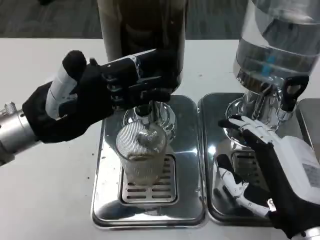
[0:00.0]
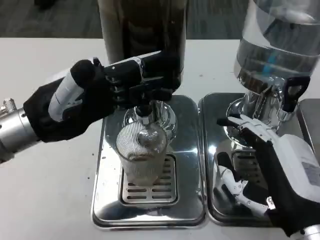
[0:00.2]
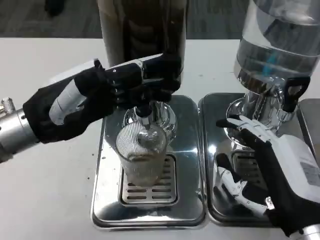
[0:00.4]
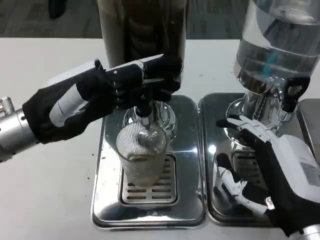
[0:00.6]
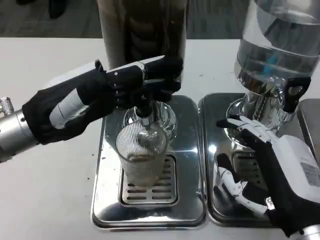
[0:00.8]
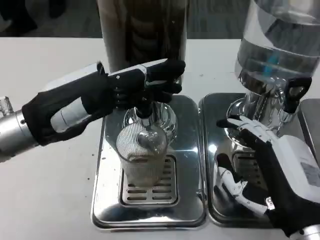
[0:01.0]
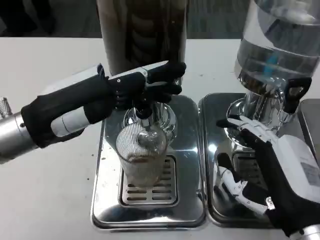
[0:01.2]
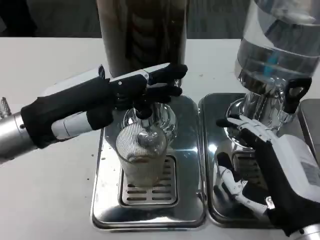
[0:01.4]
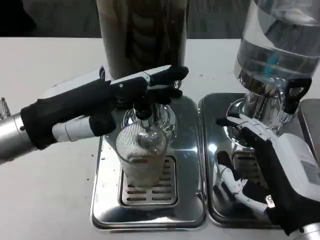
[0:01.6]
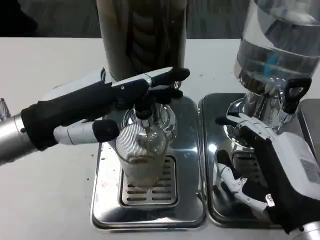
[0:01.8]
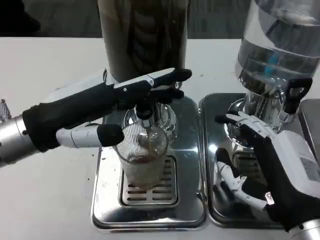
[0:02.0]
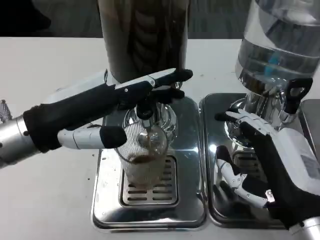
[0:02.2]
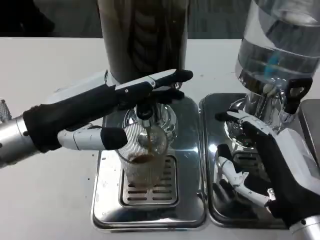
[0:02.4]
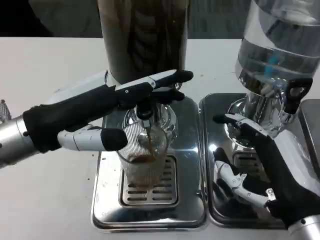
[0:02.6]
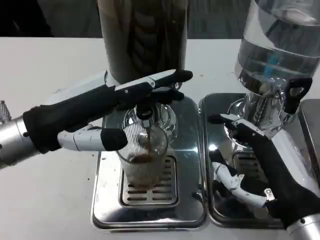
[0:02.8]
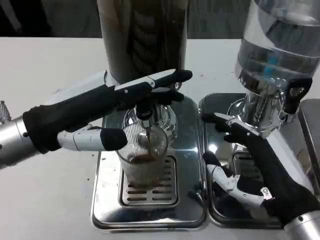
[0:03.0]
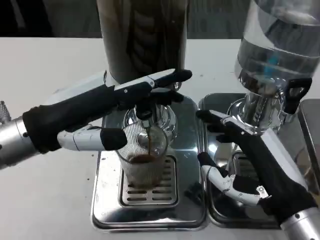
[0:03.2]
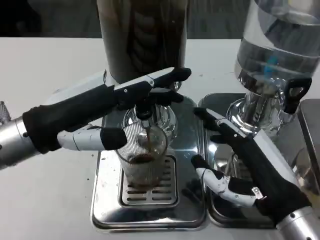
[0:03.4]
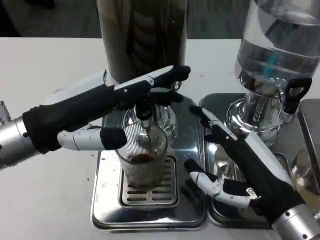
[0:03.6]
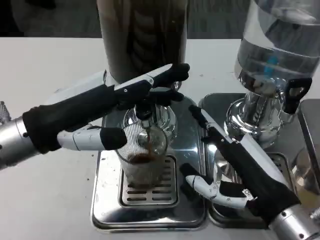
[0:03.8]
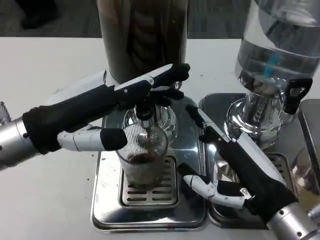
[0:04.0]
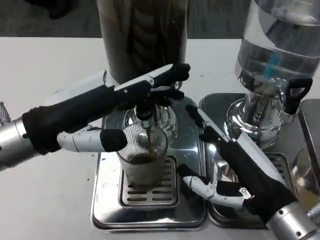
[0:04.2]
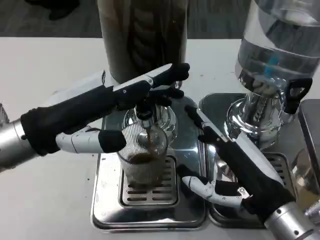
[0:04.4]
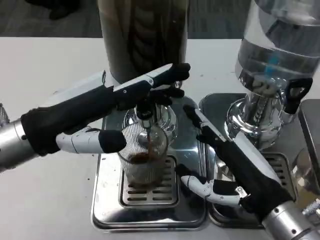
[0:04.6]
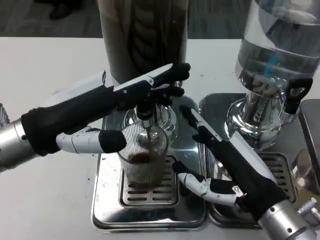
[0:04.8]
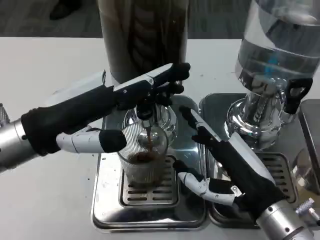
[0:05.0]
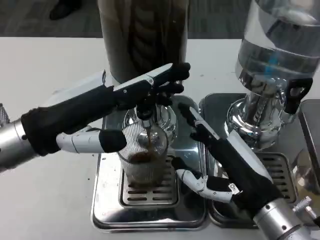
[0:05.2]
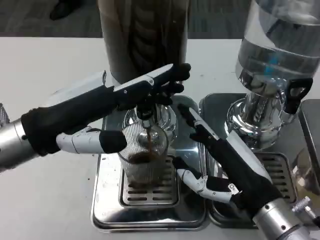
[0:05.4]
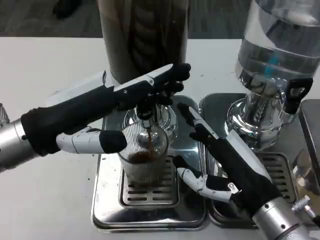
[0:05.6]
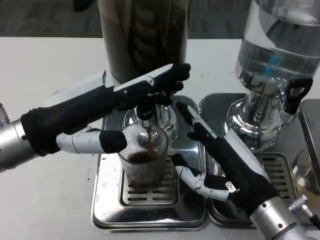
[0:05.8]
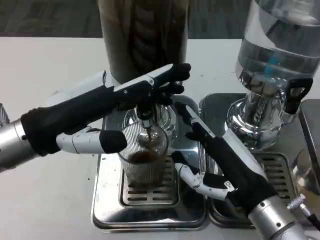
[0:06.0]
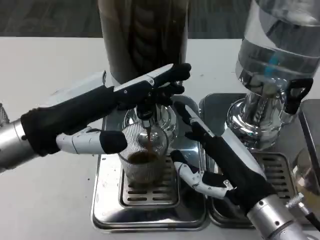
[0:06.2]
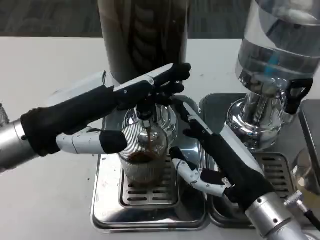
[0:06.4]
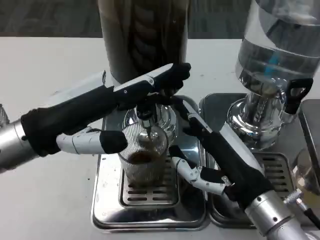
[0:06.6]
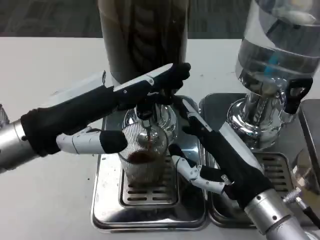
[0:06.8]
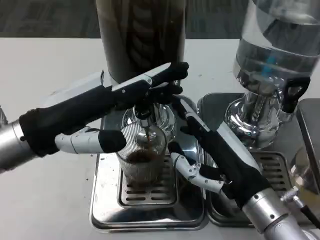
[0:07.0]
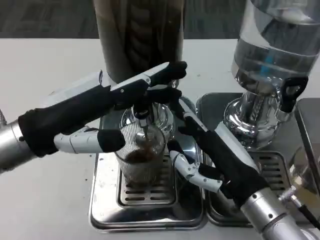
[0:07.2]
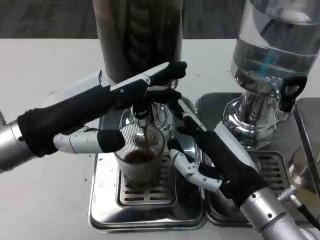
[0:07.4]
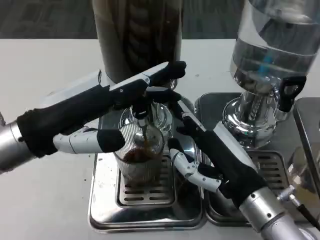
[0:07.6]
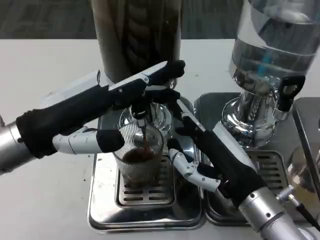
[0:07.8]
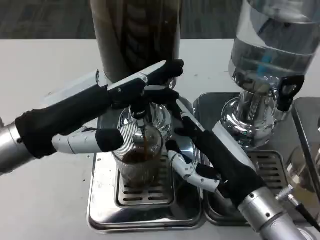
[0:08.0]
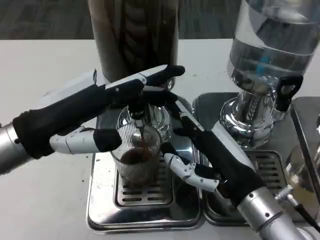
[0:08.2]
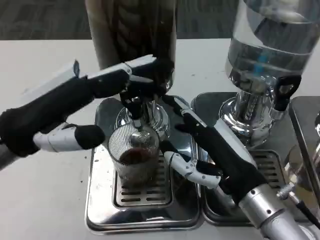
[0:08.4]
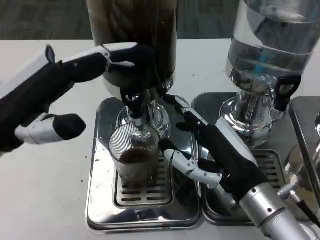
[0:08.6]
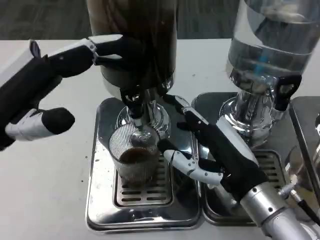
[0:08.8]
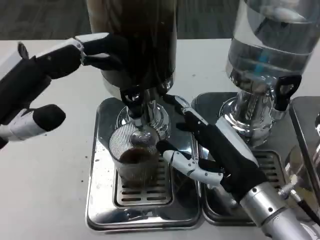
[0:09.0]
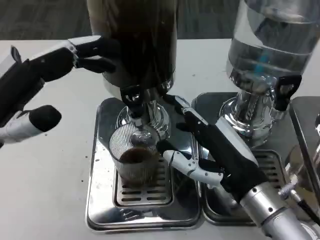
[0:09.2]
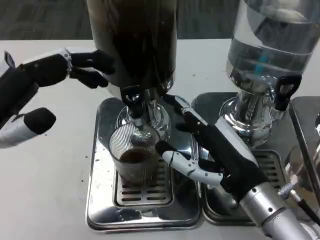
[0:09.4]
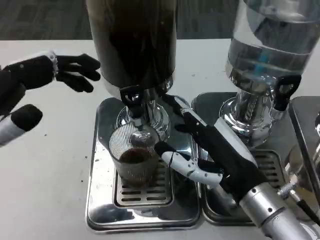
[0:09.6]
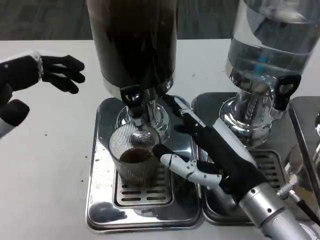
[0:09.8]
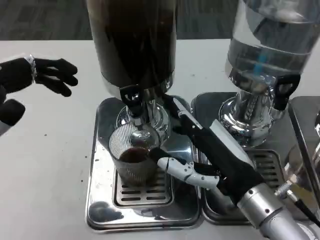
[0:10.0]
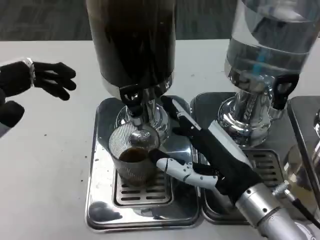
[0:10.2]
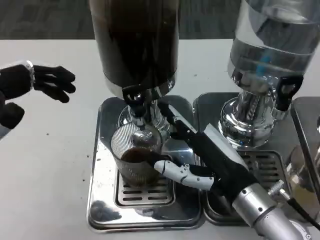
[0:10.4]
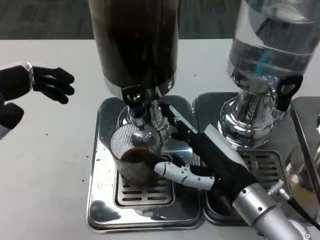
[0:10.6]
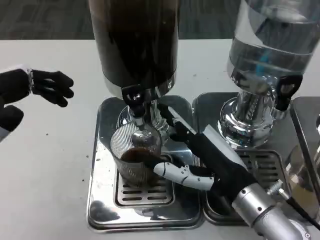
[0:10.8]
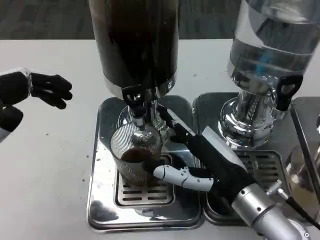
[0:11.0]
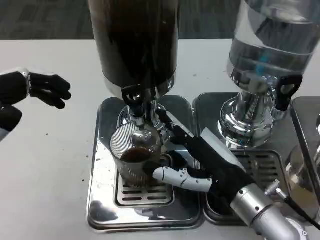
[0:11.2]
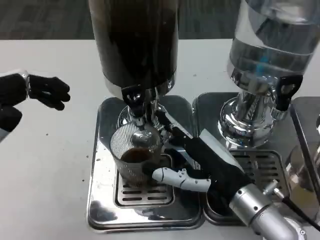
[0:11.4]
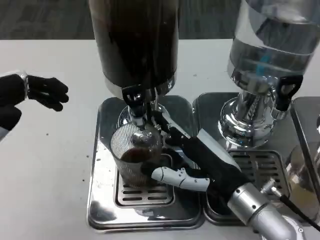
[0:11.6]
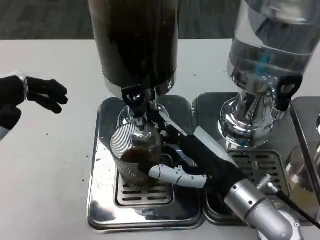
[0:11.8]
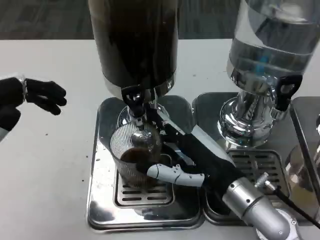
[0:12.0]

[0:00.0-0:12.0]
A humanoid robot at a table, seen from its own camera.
Task of the whole recording: Grasp the cup under the faucet to collect the drink, then remove the cup.
0:01.6 to 0:03.0: There are only small adjustments of the hands.
0:03.0 to 0:06.0: The hands stay close to where they were, moving slightly.
0:10.4 to 0:12.0: The hands move only a little.

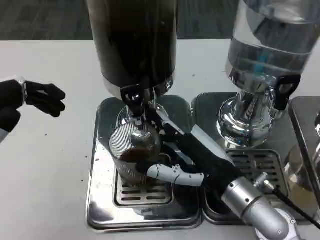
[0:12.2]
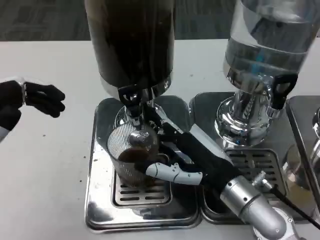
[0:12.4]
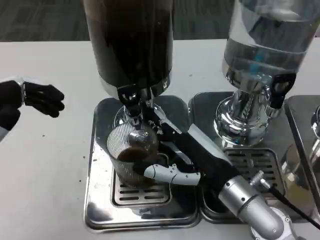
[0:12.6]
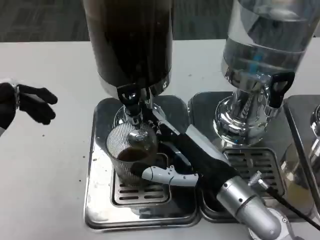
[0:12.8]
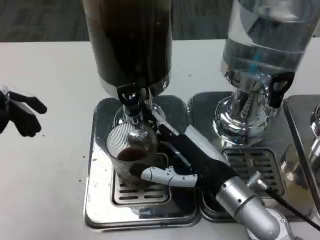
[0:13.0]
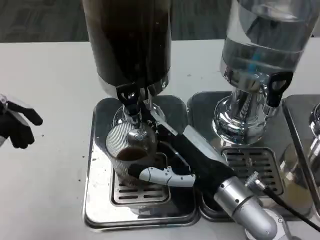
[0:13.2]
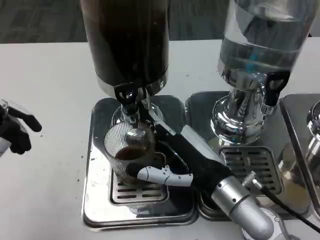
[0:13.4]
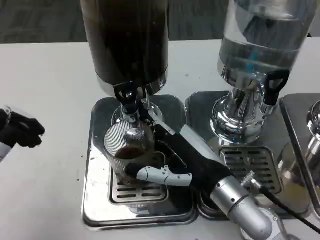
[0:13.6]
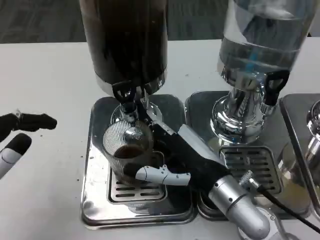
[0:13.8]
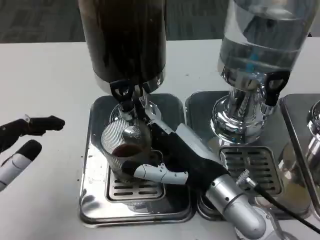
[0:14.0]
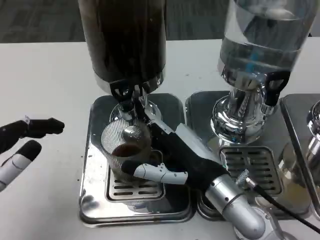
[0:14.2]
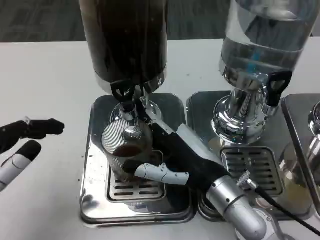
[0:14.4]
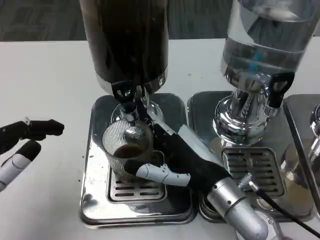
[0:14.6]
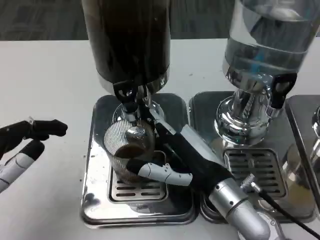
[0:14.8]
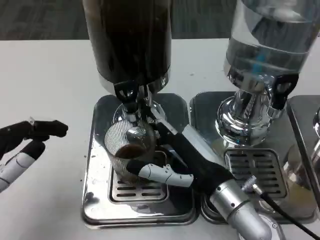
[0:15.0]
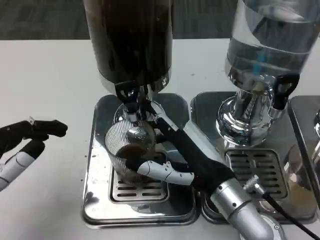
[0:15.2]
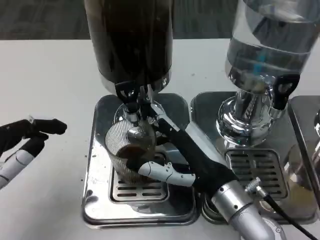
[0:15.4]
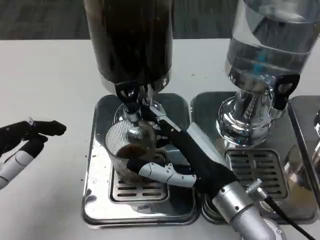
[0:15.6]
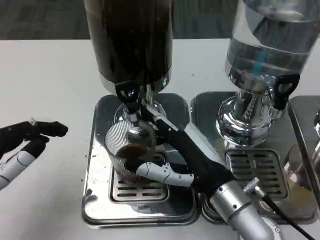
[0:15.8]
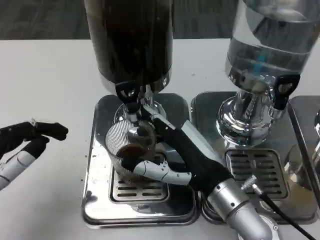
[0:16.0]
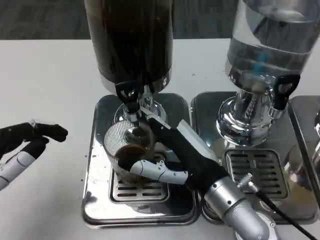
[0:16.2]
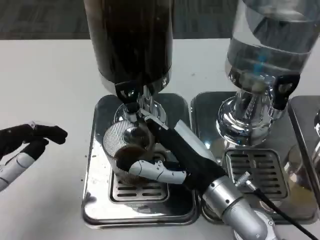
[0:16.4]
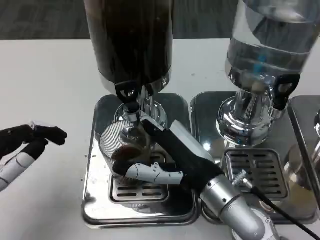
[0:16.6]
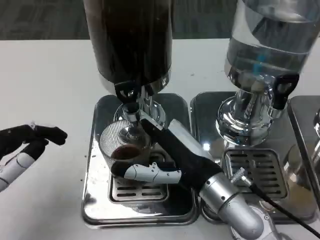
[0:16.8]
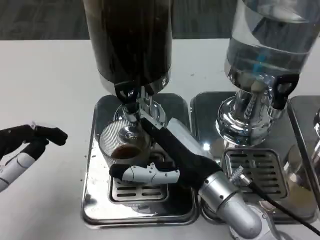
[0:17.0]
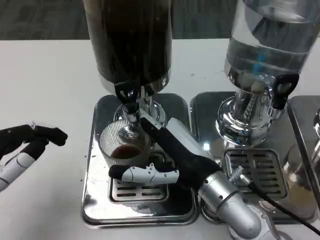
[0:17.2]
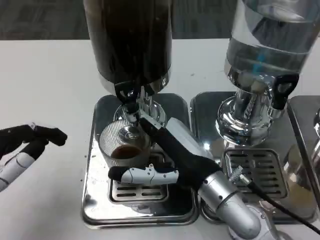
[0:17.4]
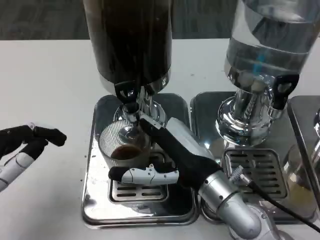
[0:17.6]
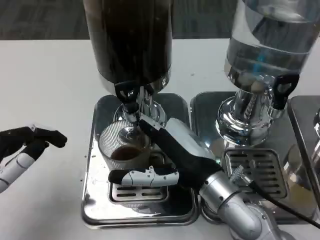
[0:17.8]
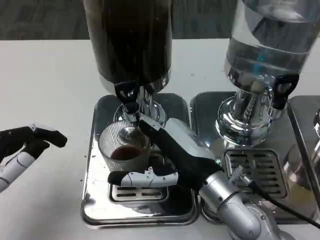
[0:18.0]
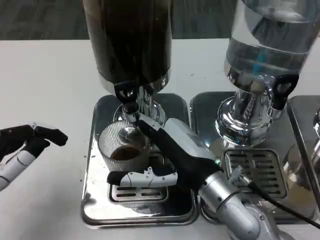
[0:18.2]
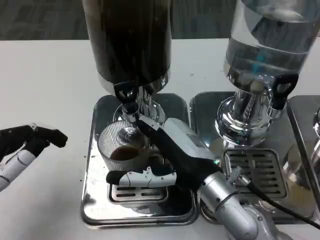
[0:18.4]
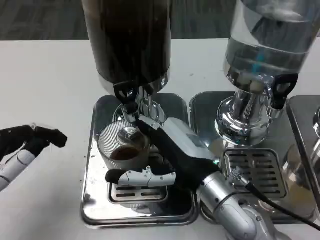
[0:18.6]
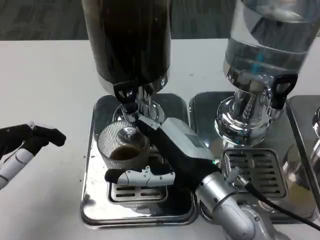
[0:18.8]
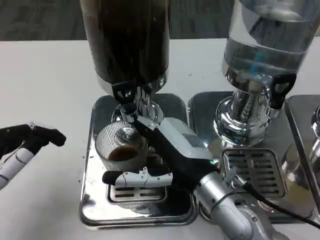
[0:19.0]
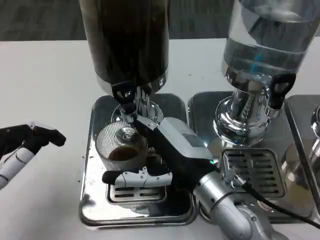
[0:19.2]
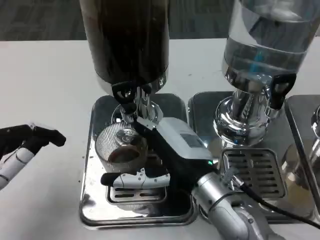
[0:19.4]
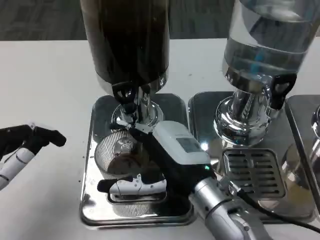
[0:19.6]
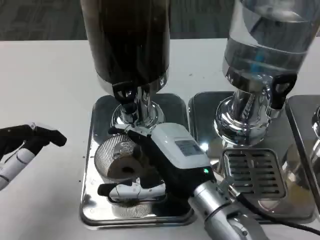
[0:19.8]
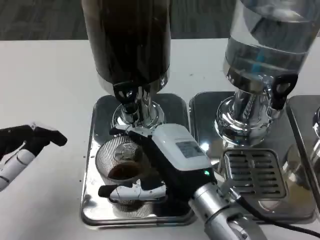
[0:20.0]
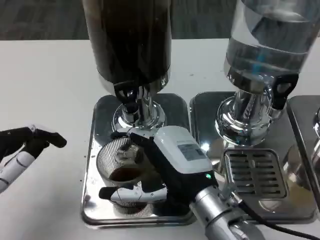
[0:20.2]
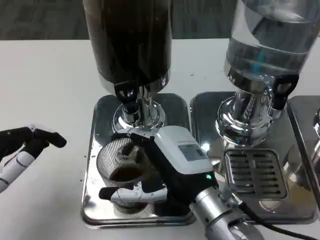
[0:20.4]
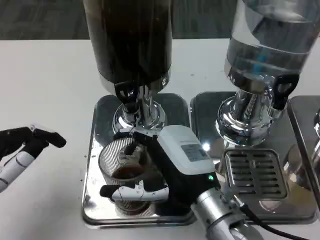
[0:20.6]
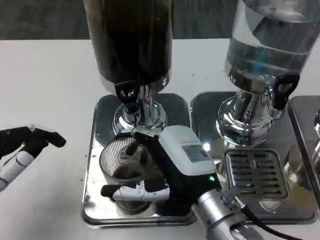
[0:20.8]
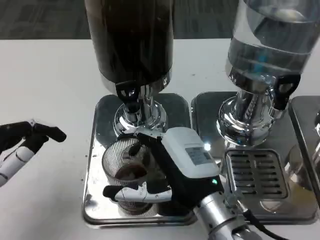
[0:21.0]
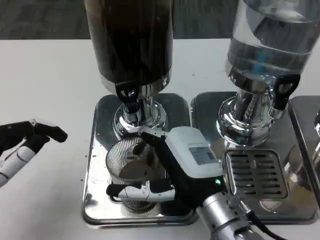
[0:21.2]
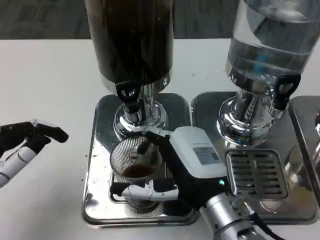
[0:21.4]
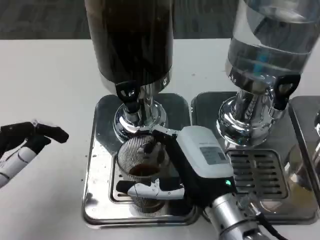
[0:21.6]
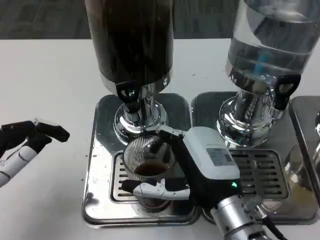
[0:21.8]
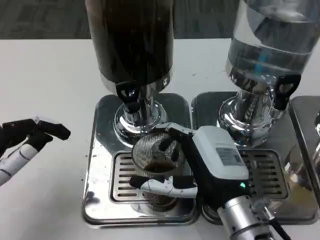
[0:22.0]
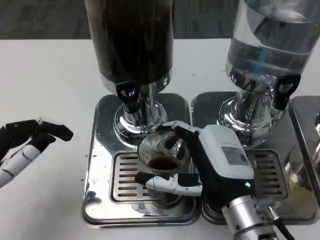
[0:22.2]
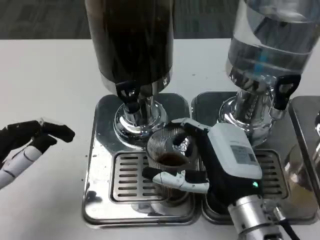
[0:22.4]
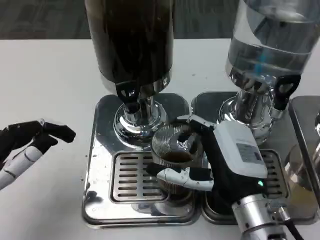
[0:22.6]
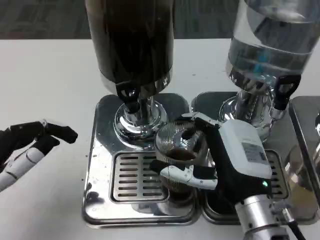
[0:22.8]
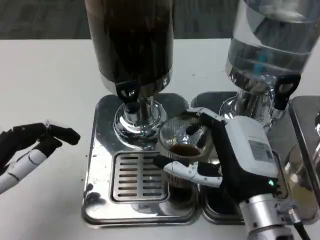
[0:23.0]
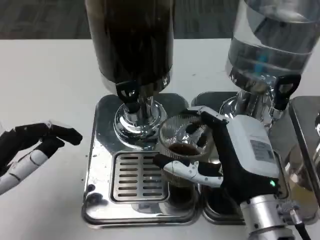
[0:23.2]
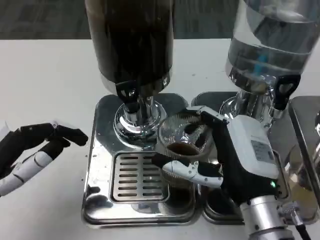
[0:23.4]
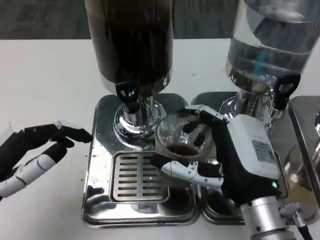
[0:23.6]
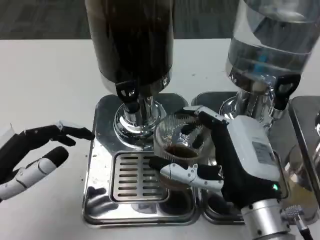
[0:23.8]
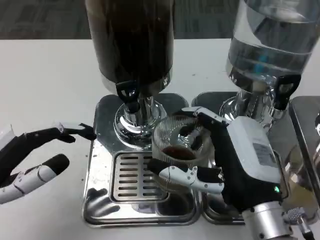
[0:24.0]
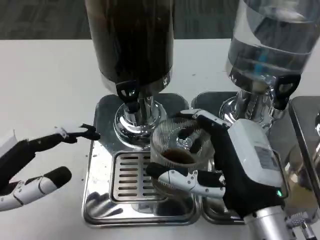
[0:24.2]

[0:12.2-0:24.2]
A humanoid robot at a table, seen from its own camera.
Task of the whole recording: Grasp the cup under the faucet to collect the drink, then remove the cup.
0:15.2 to 0:18.2: The hands make only small movements.
